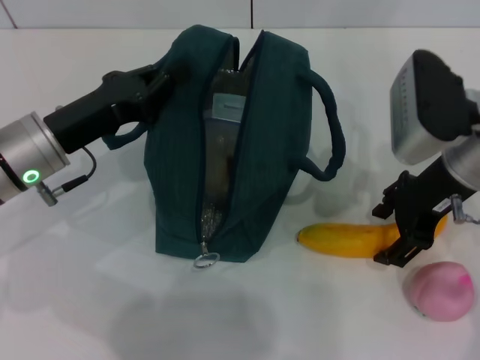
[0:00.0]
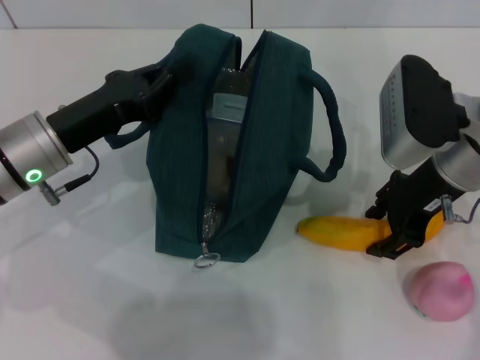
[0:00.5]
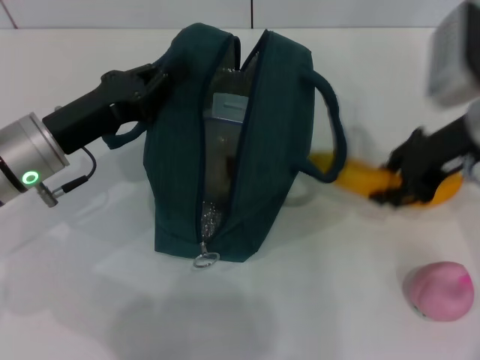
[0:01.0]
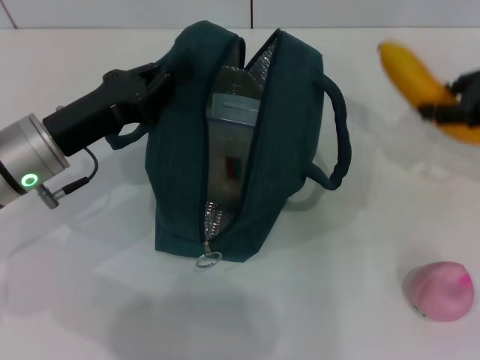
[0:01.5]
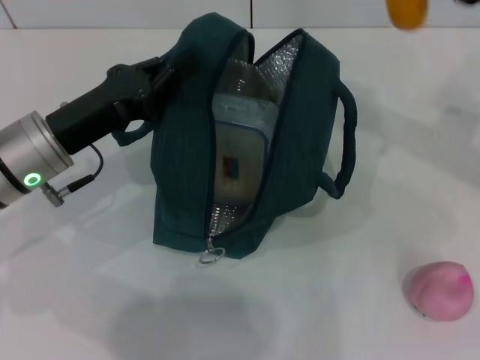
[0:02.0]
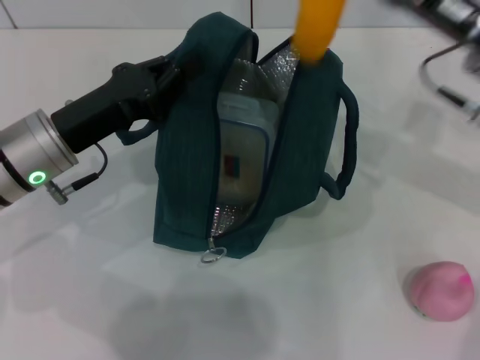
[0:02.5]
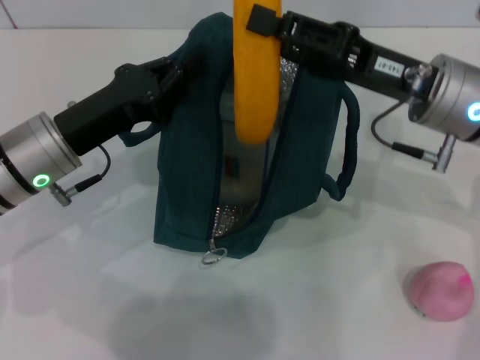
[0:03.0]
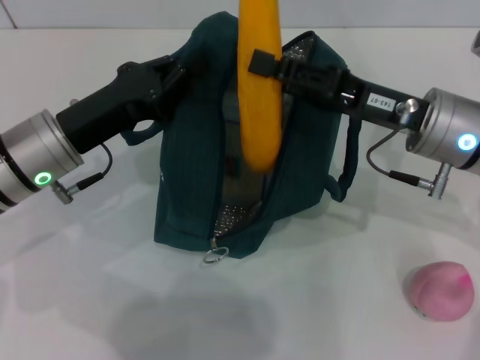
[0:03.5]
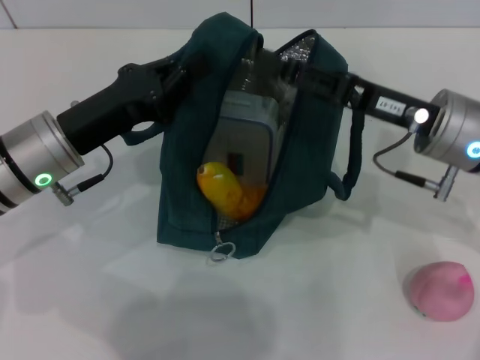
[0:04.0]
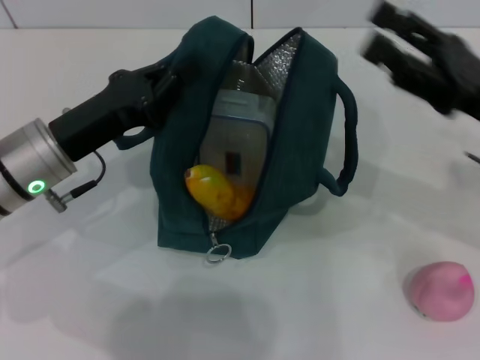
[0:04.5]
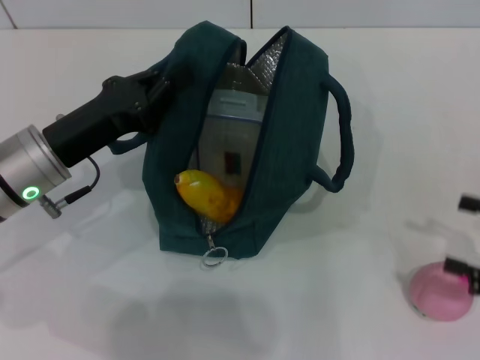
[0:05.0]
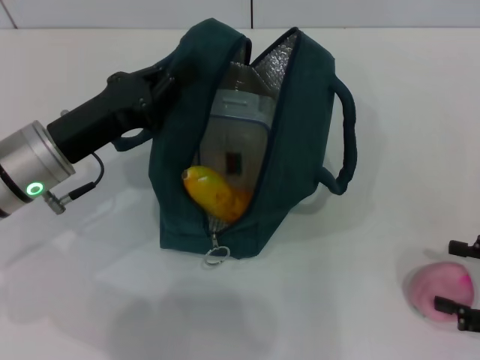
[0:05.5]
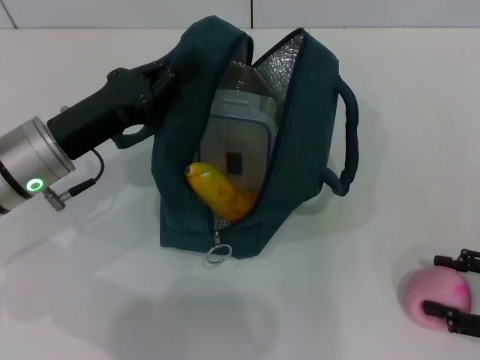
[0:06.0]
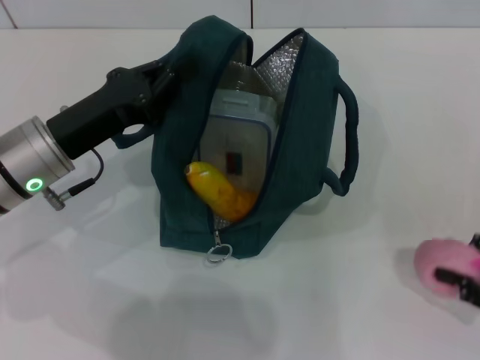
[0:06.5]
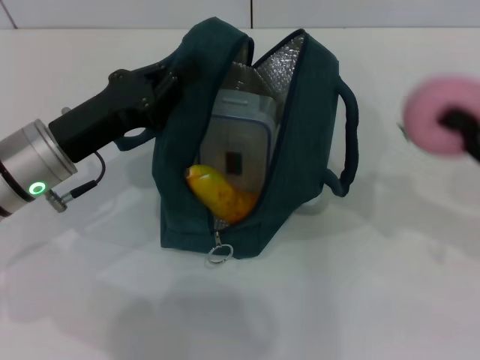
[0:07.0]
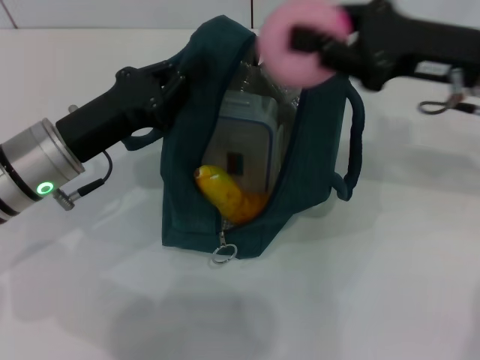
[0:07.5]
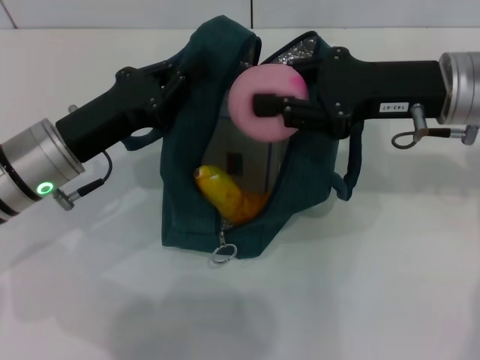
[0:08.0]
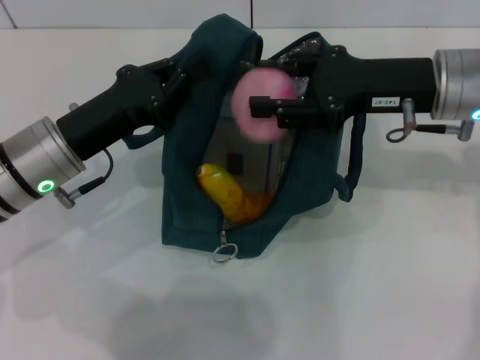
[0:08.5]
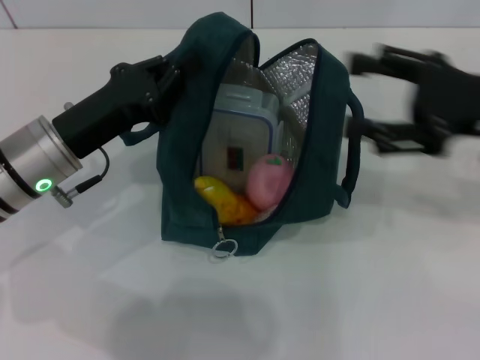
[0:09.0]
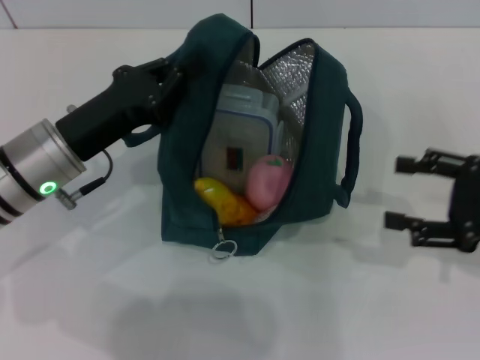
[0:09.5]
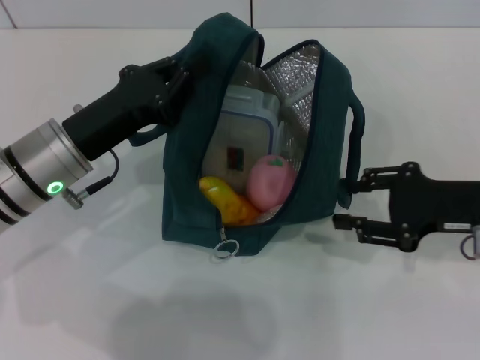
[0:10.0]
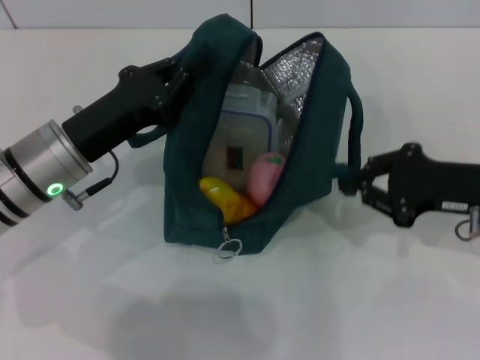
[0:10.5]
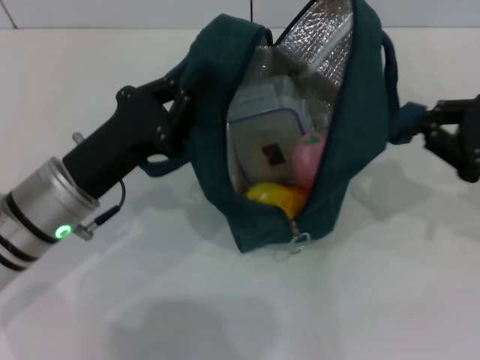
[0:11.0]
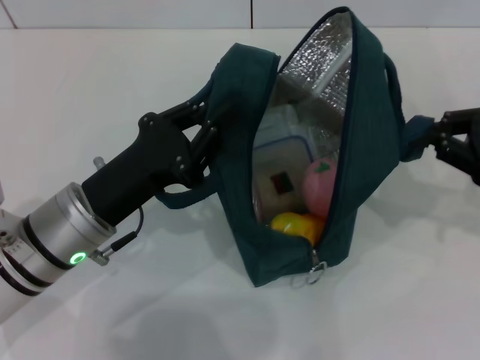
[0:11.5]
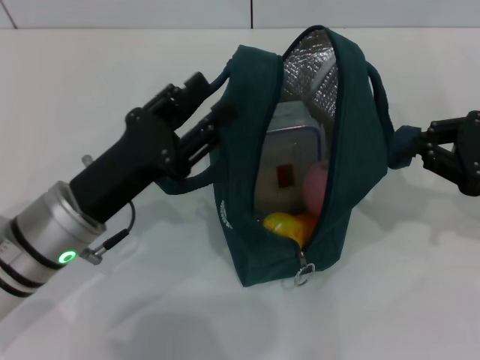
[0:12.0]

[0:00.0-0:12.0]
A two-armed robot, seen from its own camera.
Step, 1.0 to 4.0 s: Put the banana into the lunch bag with your right hand.
Step, 4.5 to 6.0 s: Grab the peach with your right hand.
0.0 to 2.0 s: The right gripper travels to the right by some 10 cm, and closes up.
2.0 to 4.0 s: The right gripper shifts about 10 cm to the left and downward.
4.0 to 6.0 s: The right gripper goes some 25 cm to the right, backward and downward.
6.0 to 8.0 s: The right gripper travels to the left, forward and upward by roughly 25 cm, and closes its fingers.
8.0 to 10.0 s: The right gripper is displaced downward, to the right and backward by some 10 cm, and opens its fingers.
10.0 to 12.0 s: The left gripper shifts roughly 5 cm backward, while the right gripper moves roughly 5 cm, and closes.

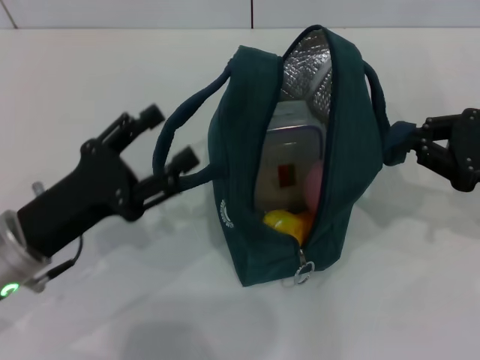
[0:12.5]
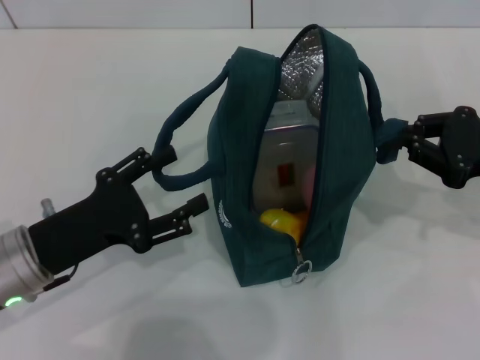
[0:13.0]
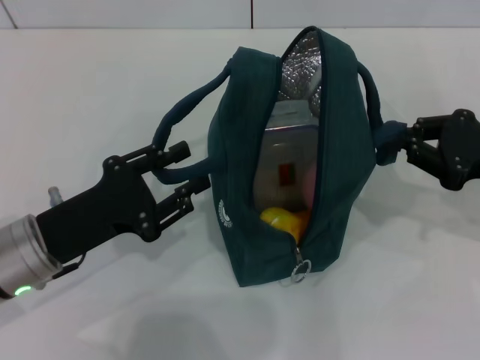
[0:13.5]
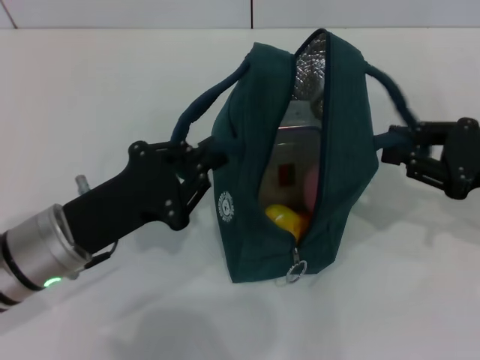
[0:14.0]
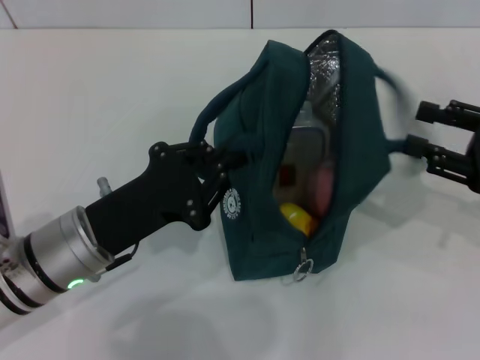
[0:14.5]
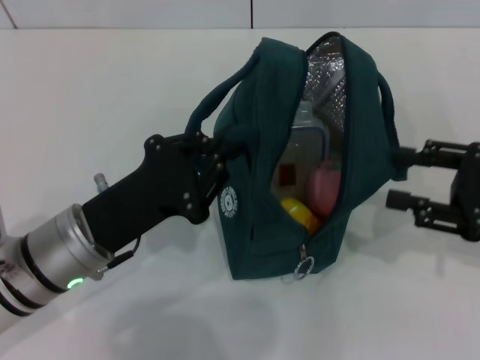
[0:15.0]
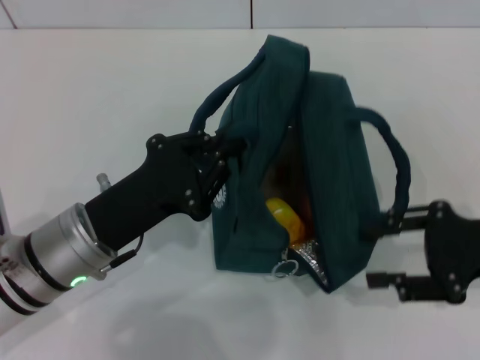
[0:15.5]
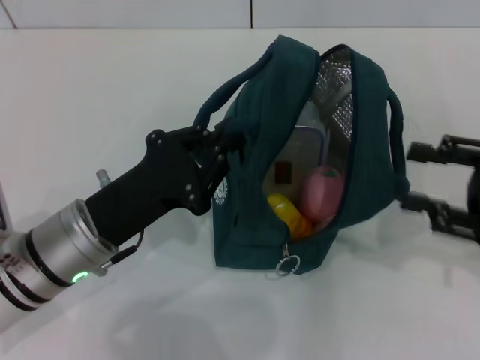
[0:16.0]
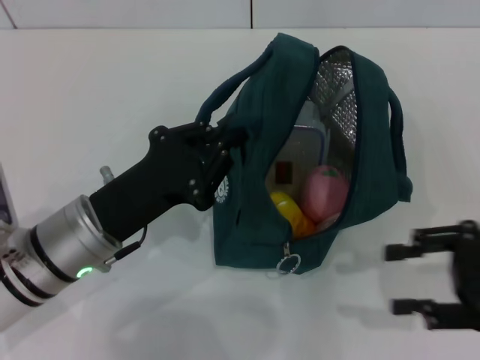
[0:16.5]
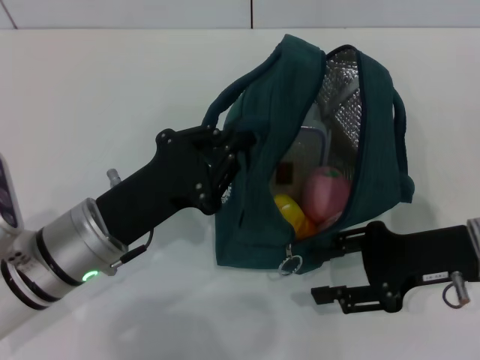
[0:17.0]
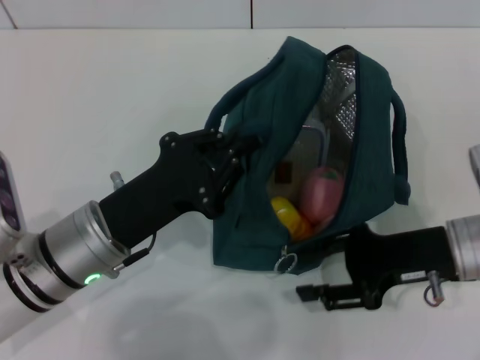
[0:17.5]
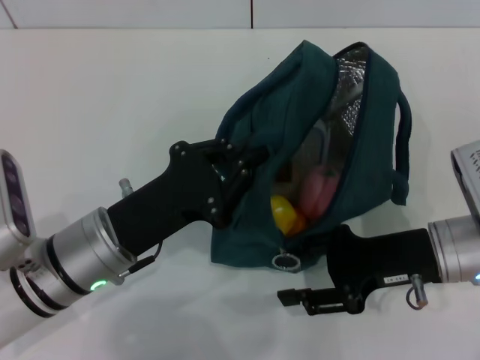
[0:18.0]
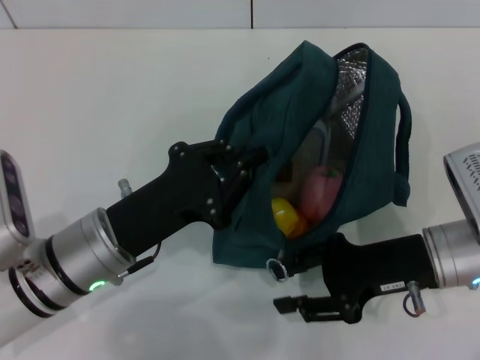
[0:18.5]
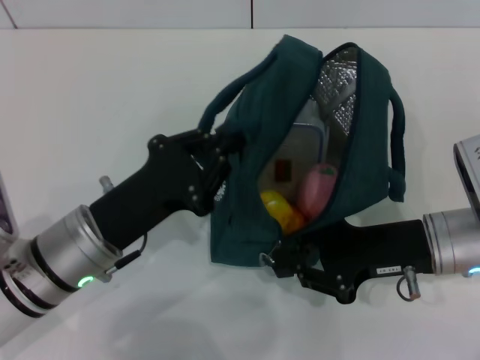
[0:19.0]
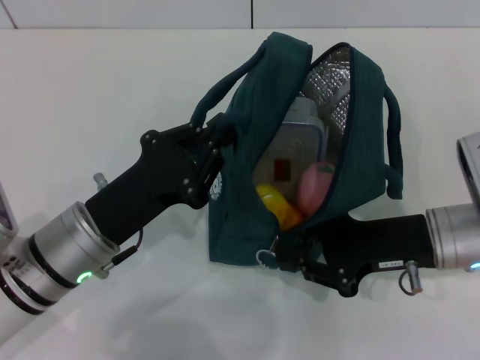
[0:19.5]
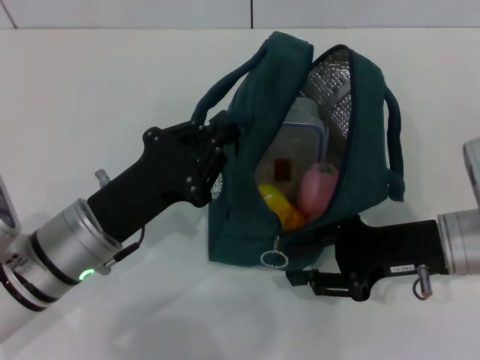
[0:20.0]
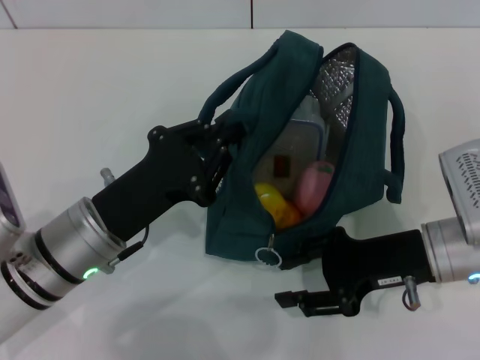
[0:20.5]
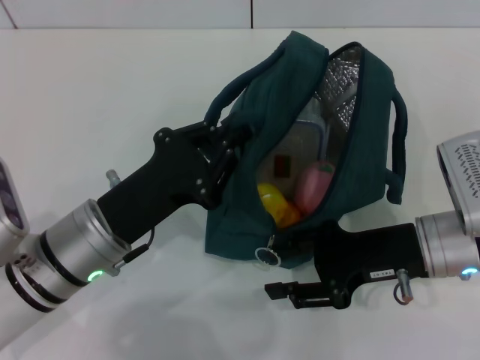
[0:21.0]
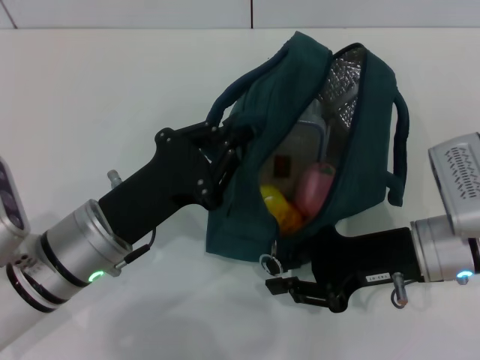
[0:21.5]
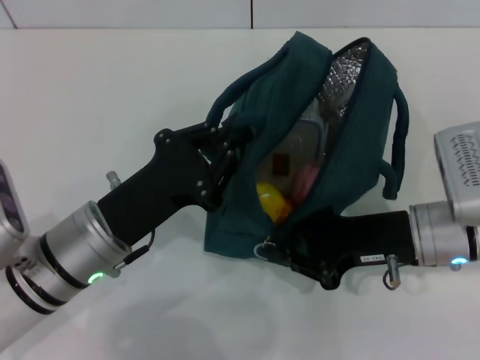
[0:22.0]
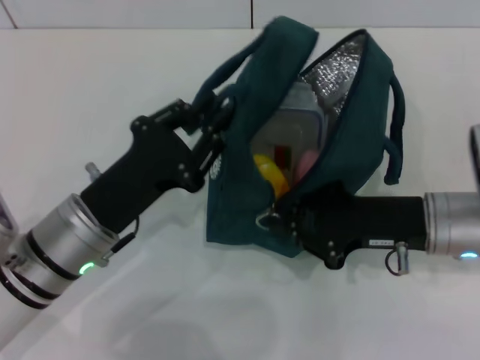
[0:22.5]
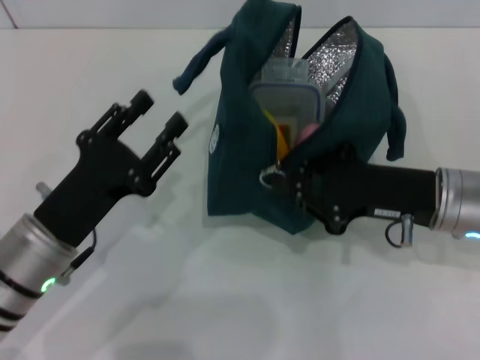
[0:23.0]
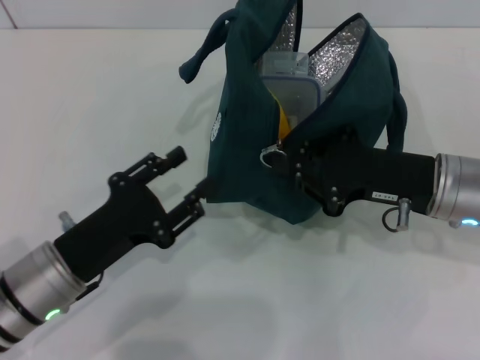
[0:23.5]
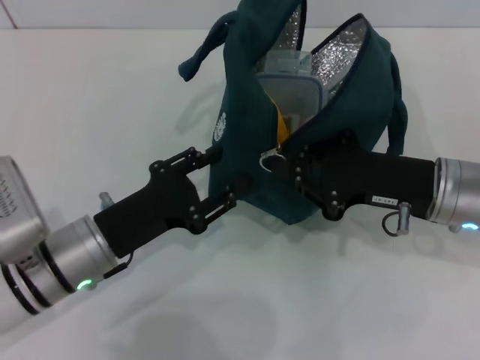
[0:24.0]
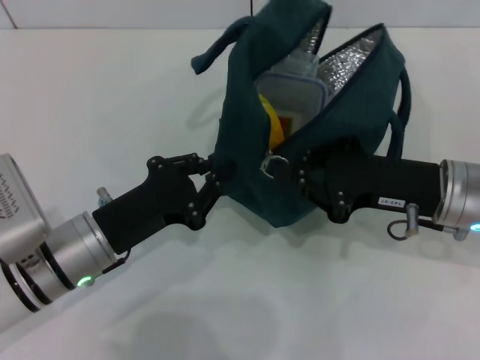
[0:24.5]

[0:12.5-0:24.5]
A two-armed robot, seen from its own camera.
Step, 12.5 to 14.5 s: Hold the lunch bag with your right hand.
12.5 to 14.5 s: The left gripper moves about 5 cm, and closes up; the right gripper opens.
16.5 to 18.5 s: The right gripper travels to the left by some 10 cm.
18.5 to 20.5 s: The right gripper closes and opens again.
20.5 to 22.5 s: The right gripper closes its fingers.
22.5 to 24.5 s: The left gripper opens, then closes once more.

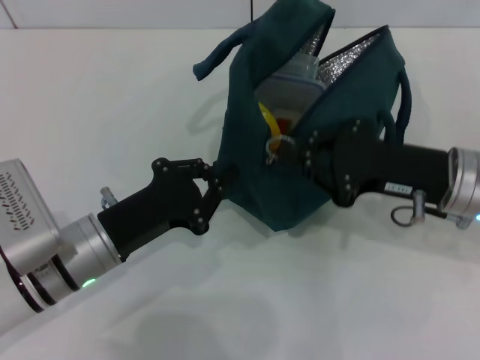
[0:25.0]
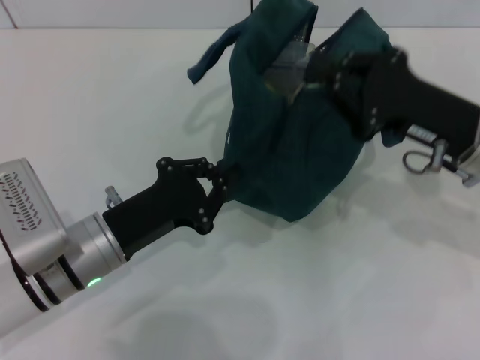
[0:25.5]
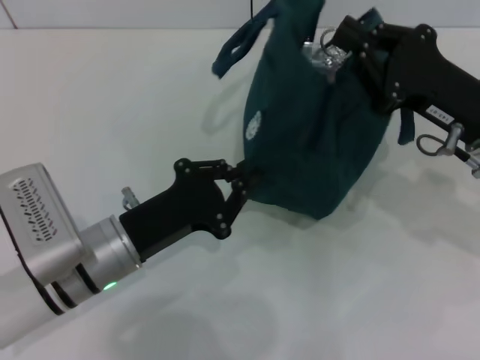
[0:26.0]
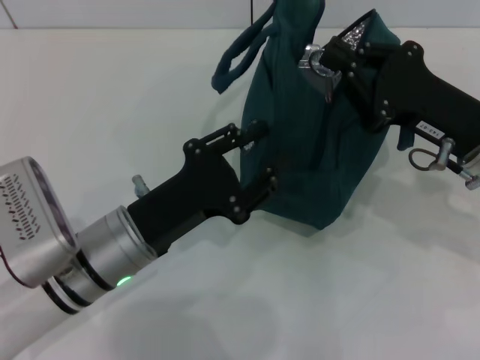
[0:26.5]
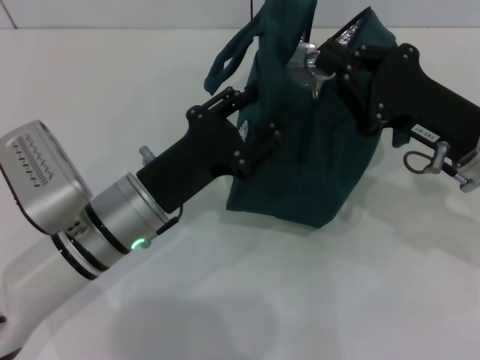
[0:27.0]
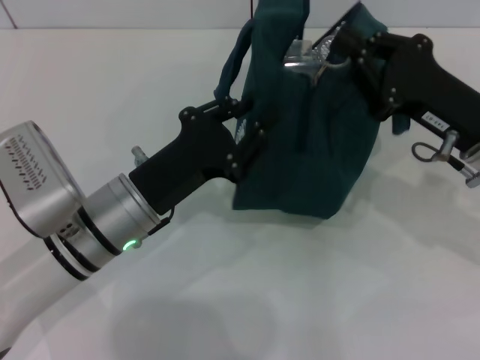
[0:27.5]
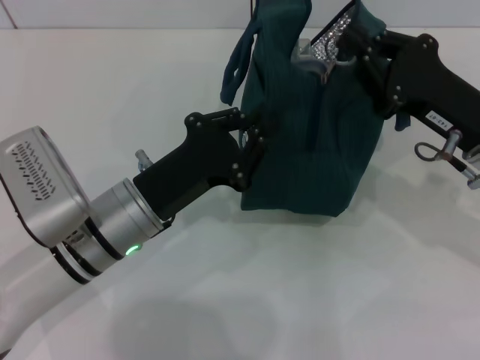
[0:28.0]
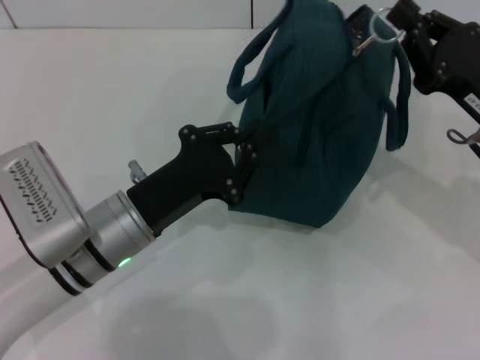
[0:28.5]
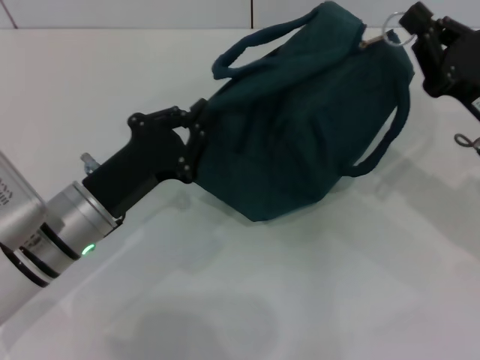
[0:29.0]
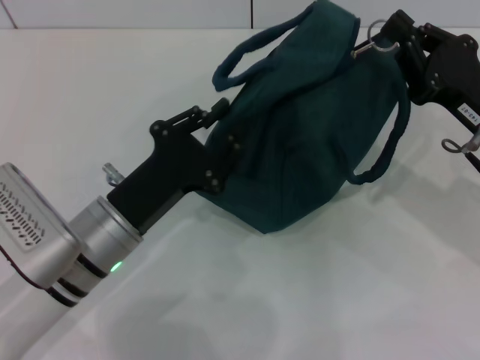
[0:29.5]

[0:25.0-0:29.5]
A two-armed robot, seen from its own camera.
25.0 to 27.0 s: The left gripper shifts by some 5 cm, and opens its fingers.
27.0 to 29.5 s: The left gripper closes its fingers.
